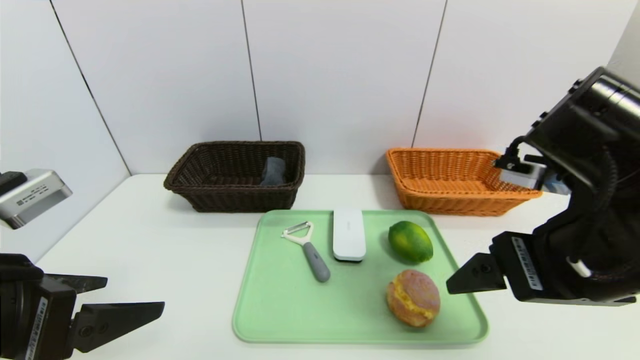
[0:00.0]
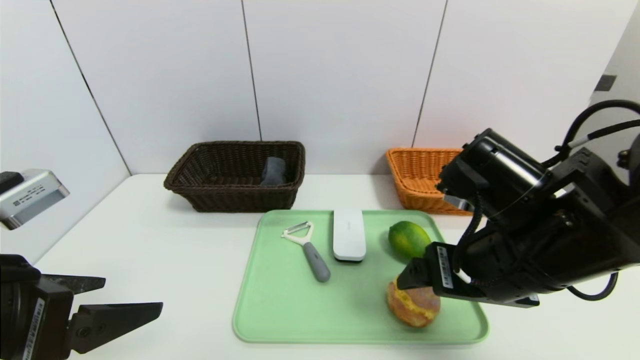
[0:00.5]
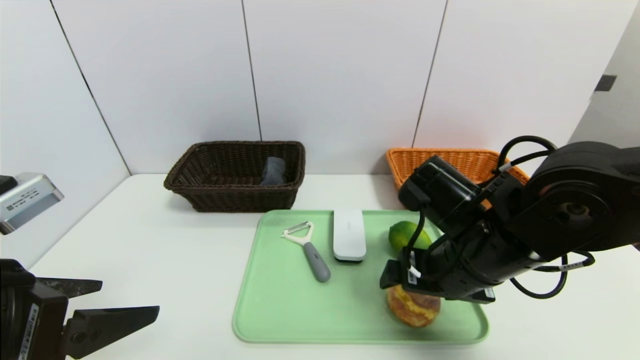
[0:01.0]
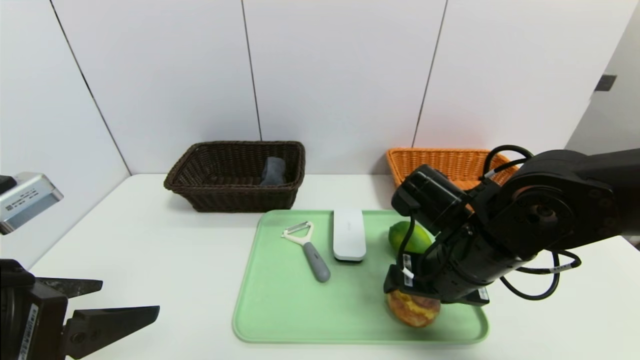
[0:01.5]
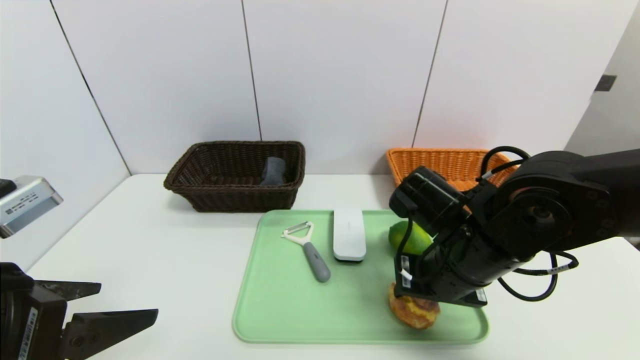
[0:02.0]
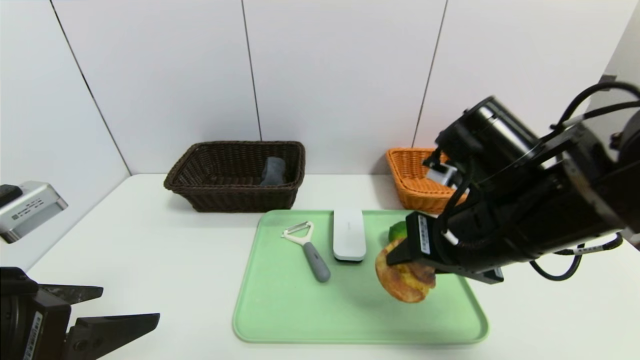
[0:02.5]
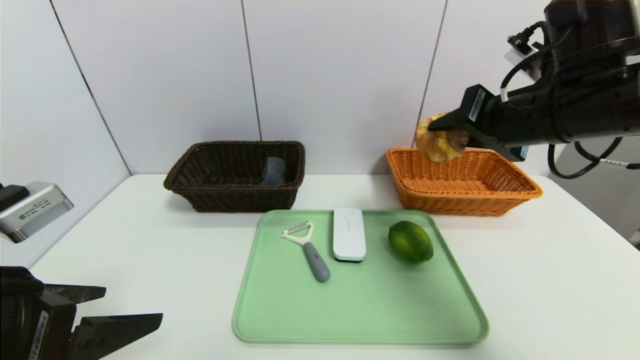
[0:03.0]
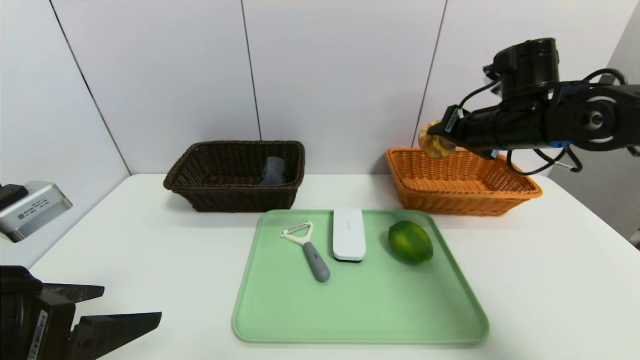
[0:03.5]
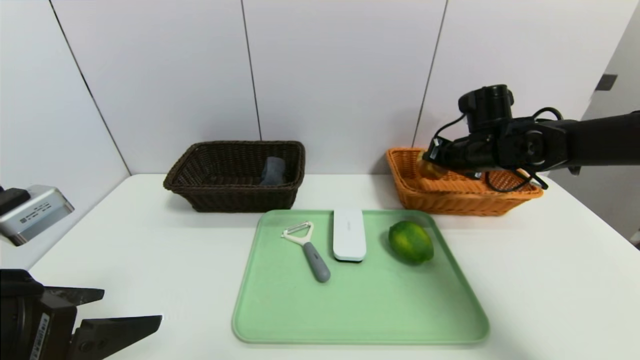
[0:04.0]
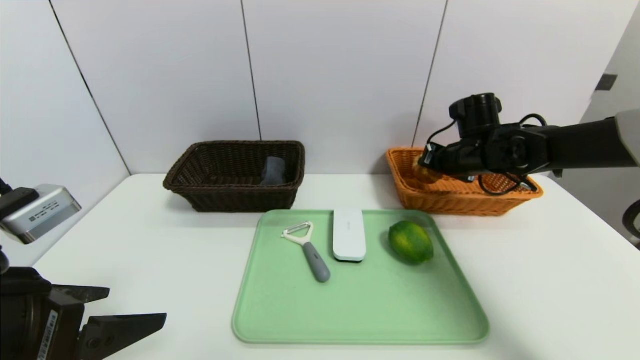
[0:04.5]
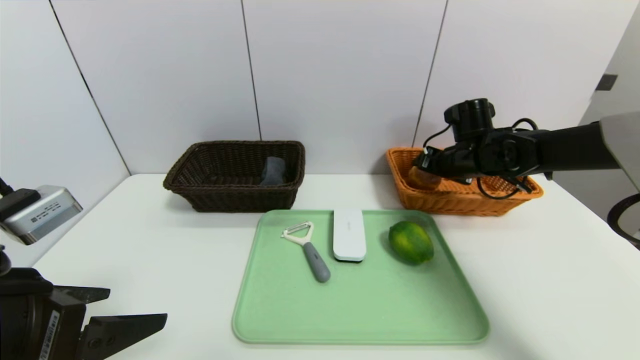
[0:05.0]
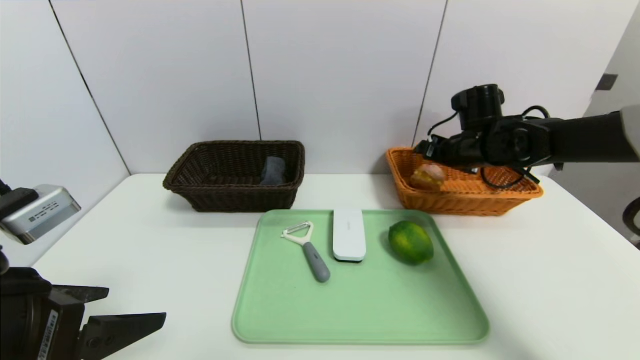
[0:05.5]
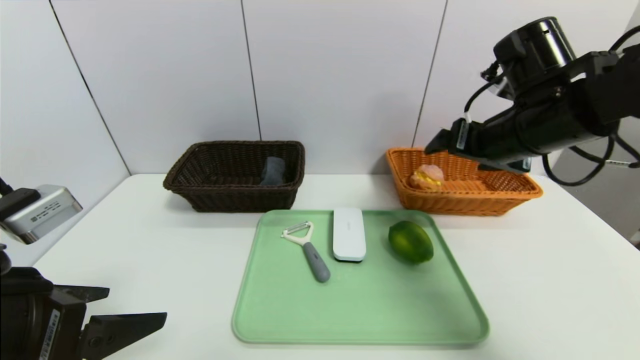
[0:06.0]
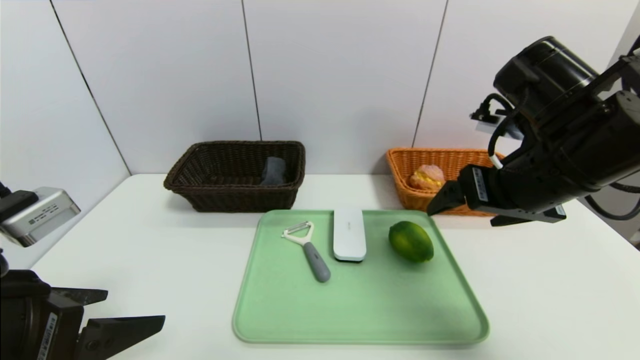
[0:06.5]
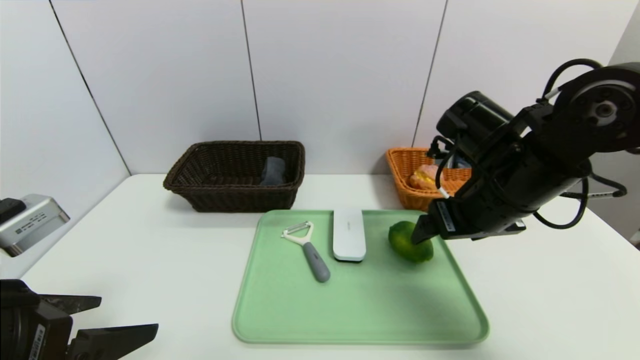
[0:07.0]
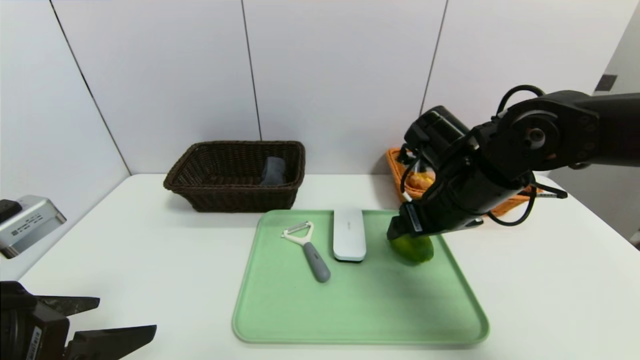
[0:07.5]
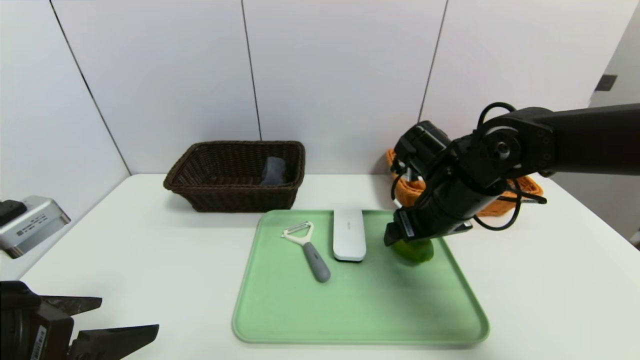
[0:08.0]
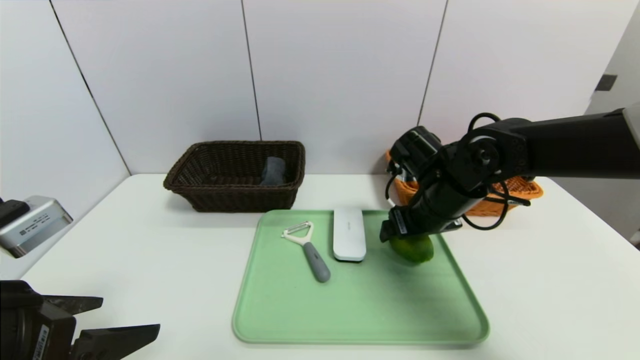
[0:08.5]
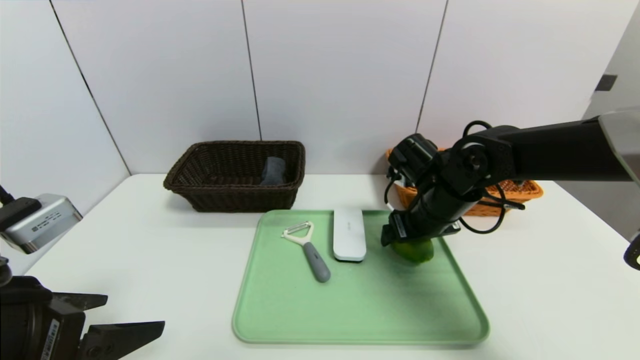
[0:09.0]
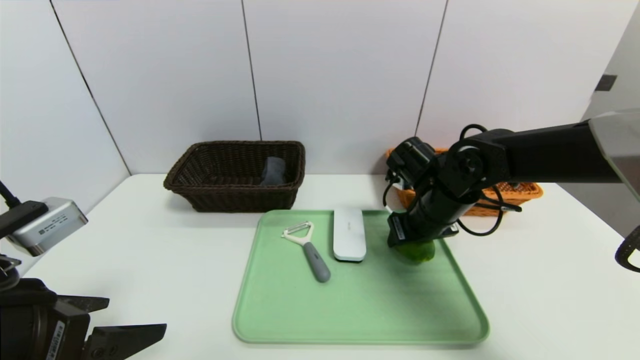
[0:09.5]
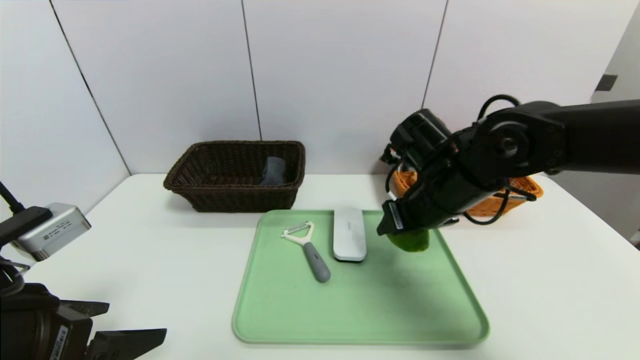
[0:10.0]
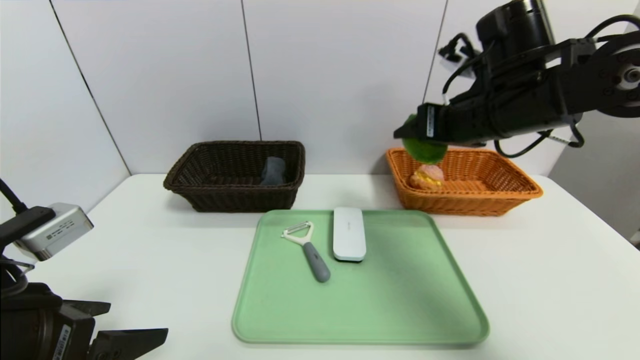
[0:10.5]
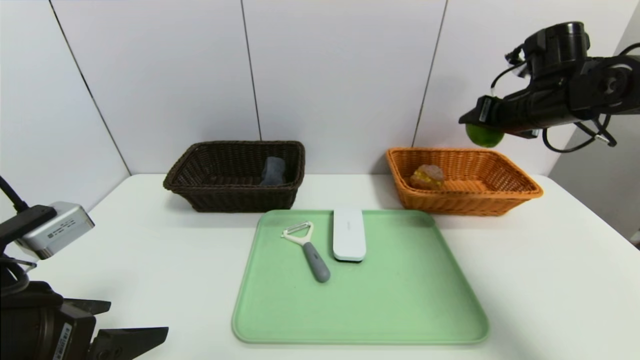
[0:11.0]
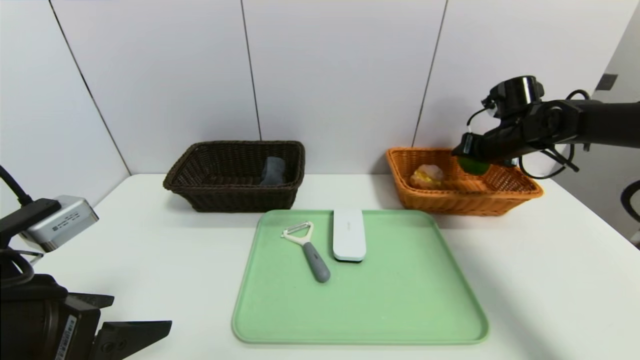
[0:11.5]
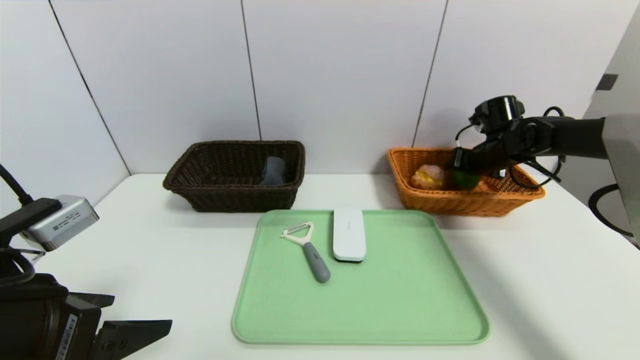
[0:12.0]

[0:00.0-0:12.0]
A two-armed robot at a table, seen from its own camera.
Task of the whole recording: place the food in the right basket with the right gripper, and place the non food items in the left basket with the left gripper.
Step, 0:00.0 to 0:05.5: Grasp the round bread and put it in the right basket.
0:00.0 to 0:02.0: The right gripper is displaced downward, forward and to the left by some 15 cm, and closes its fingers.
0:02.0 to 0:04.0: The right gripper goes about 20 cm forward and to the right.
0:04.0 to 0:06.0: The right gripper travels backward and upward by roughly 15 cm, and opens.
0:06.0 to 0:08.0: The right gripper heads downward and to the left, covering some 10 cm.
0:08.0 to 0:10.0: The right gripper closes.
0:10.0 to 0:12.0: The right gripper heads to the right and forward, covering about 25 cm.

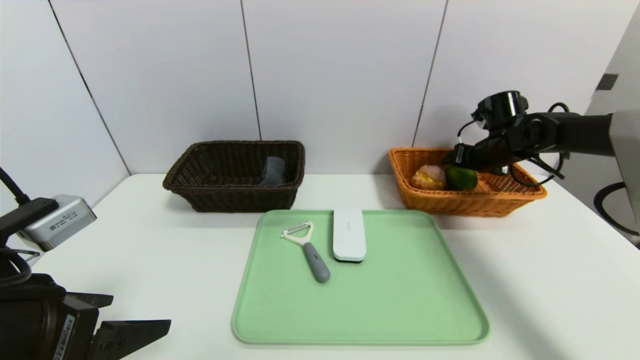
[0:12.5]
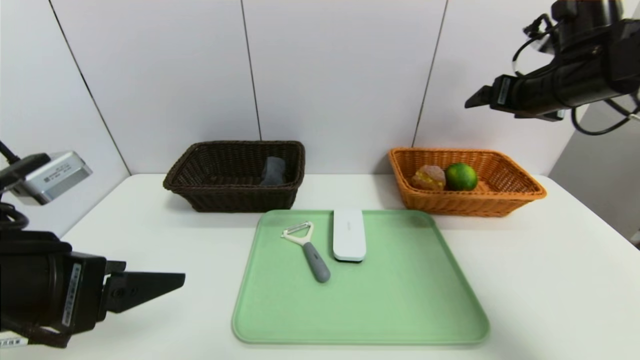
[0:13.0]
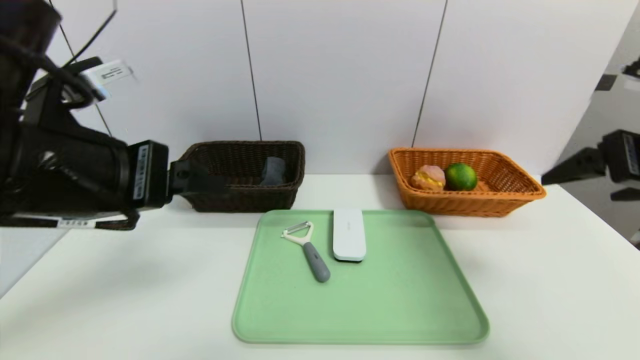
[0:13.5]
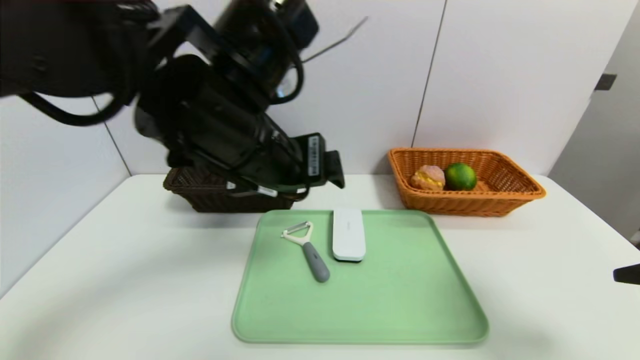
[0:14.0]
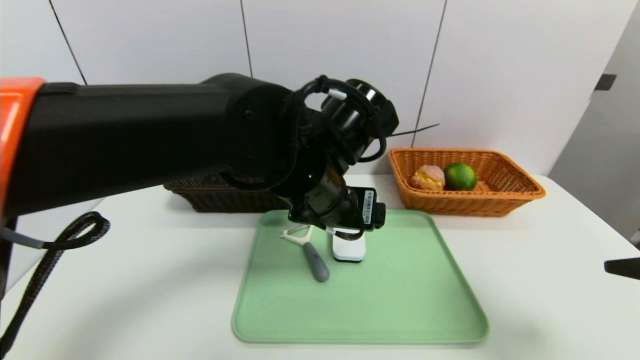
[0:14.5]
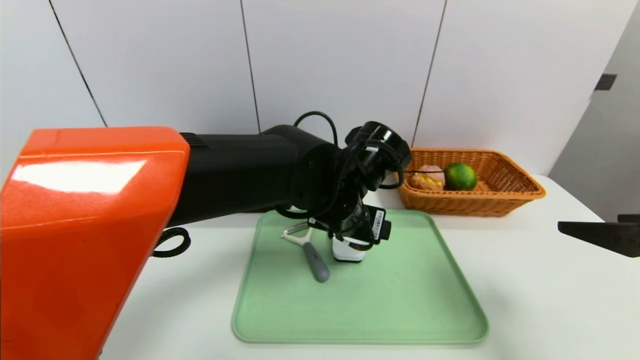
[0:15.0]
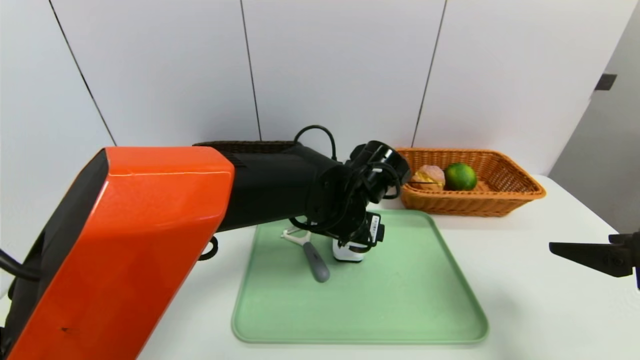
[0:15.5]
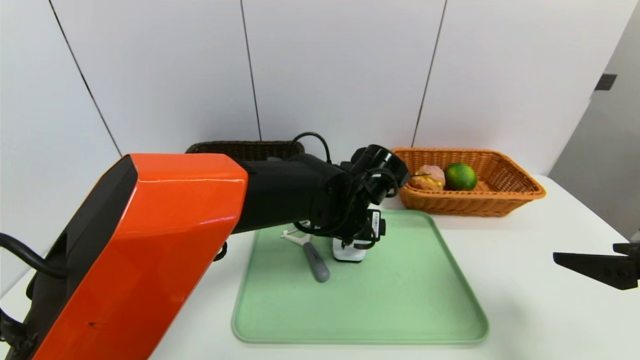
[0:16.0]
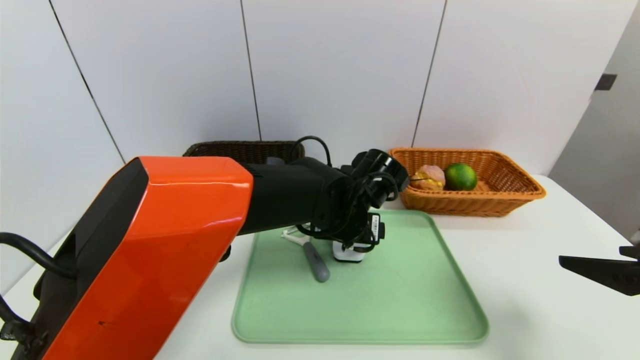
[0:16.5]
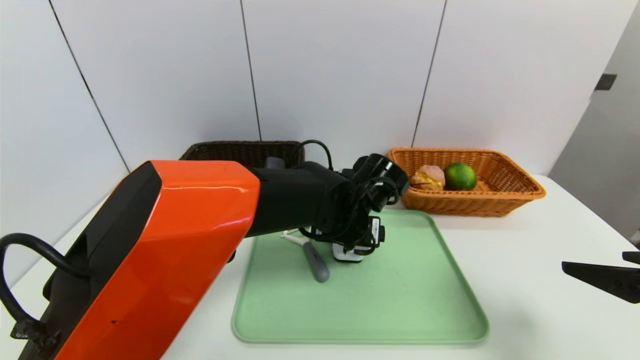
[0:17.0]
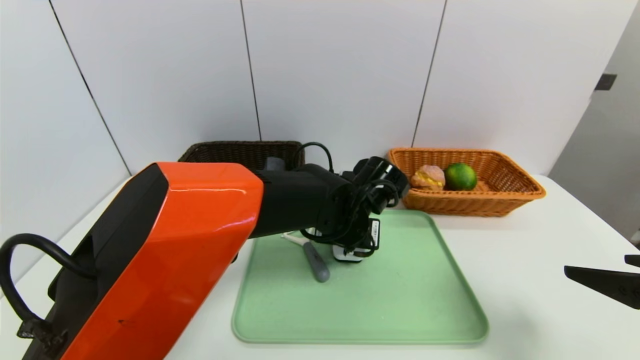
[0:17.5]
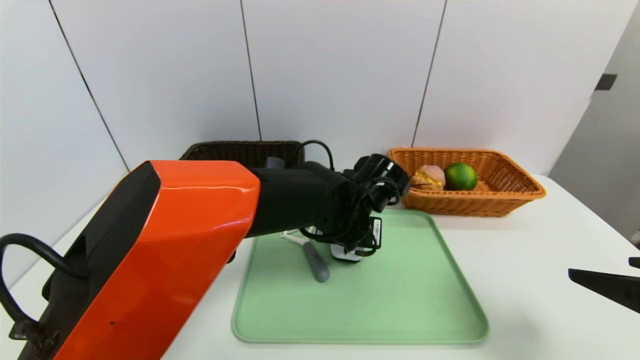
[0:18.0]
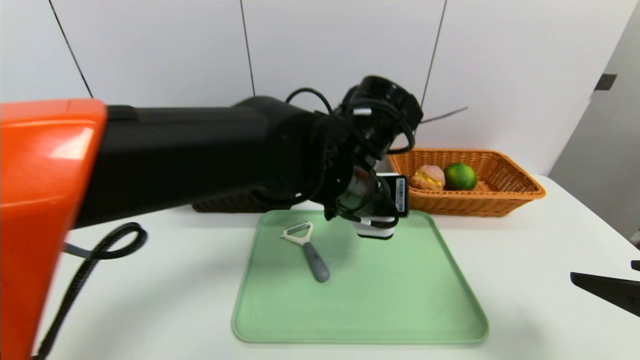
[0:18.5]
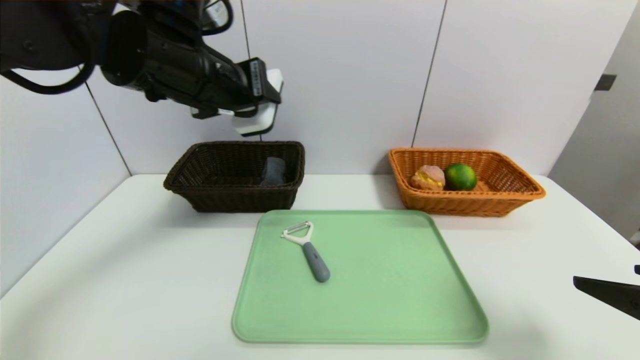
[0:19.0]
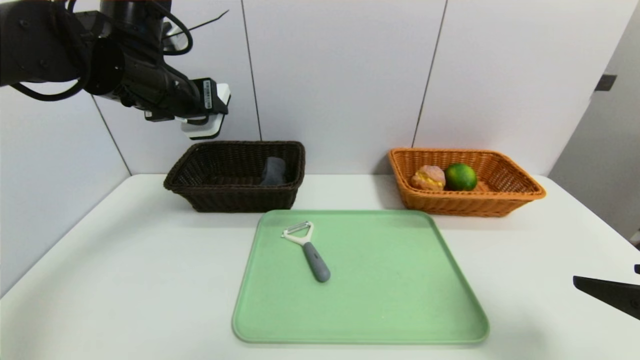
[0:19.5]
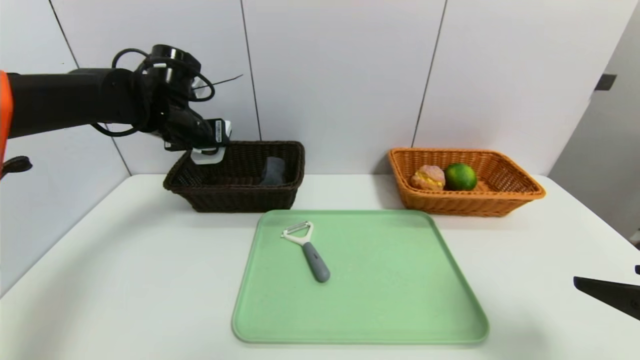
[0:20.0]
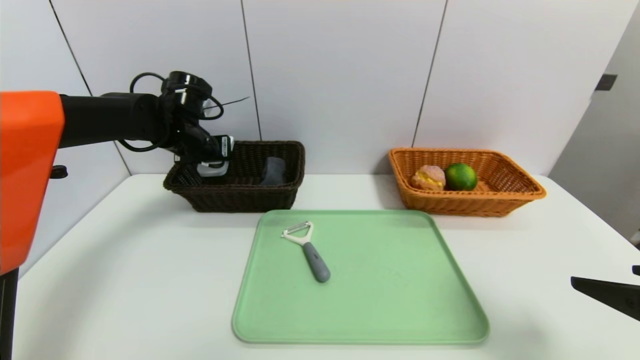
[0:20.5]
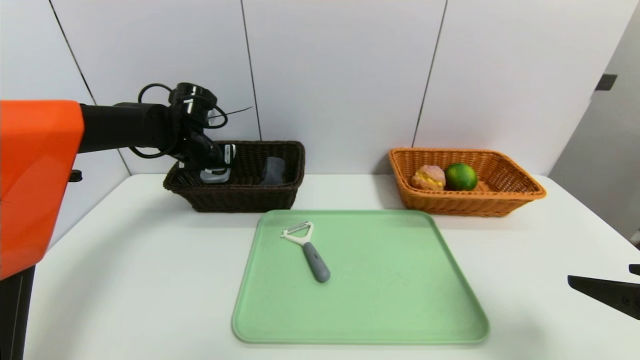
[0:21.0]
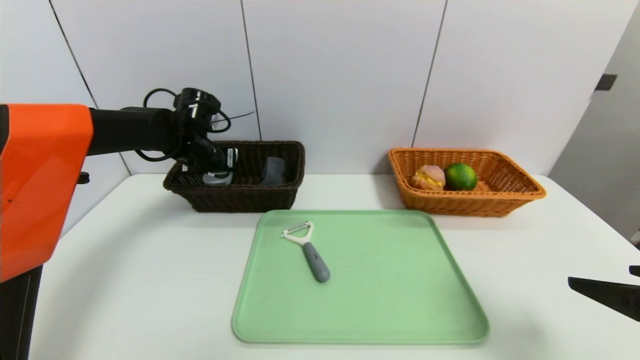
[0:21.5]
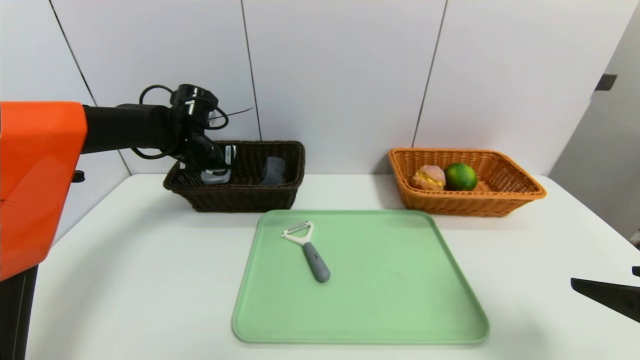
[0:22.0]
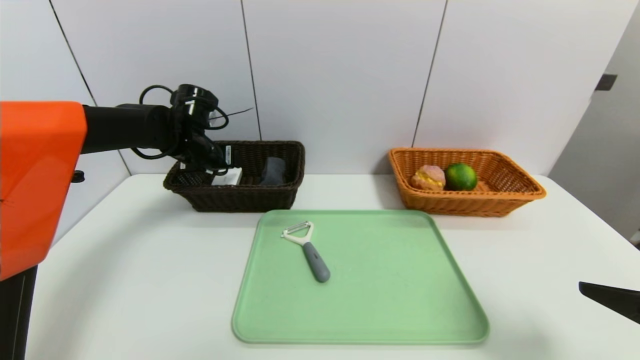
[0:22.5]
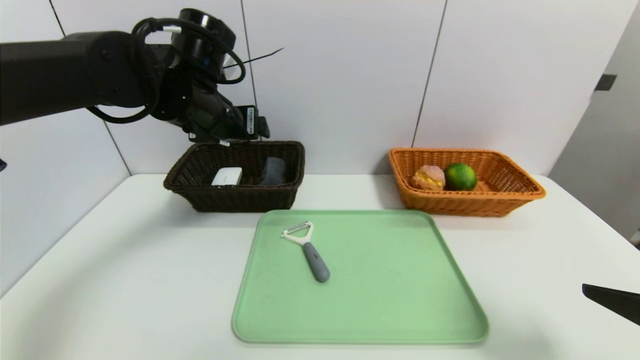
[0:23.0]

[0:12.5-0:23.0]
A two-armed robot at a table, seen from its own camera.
Task of the whole recording: place the food in the right basket with the right gripper, and place the non food items in the left basket with the left gripper.
Step, 0:13.0 to 0:22.5: Grasp the white eraser and put it in the left basket.
0:12.5 to 0:14.5: The left gripper heads to the right and forward, covering about 30 cm, while the right gripper moves backward, about 35 cm.
0:14.5 to 0:16.5: The left gripper heads downward and forward, covering some 10 cm.
0:16.5 to 0:19.0: The left gripper shifts approximately 25 cm upward and to the left, and closes.
0:19.0 to 0:21.0: The left gripper is displaced forward, downward and to the left by some 25 cm.
0:21.0 to 0:23.0: The left gripper moves backward, upward and to the right, approximately 15 cm, and opens its fingers.
